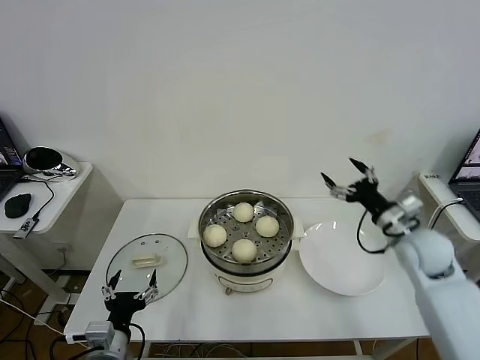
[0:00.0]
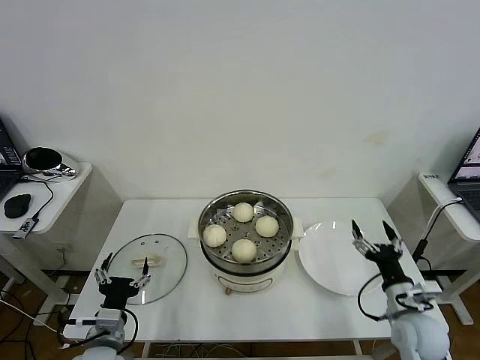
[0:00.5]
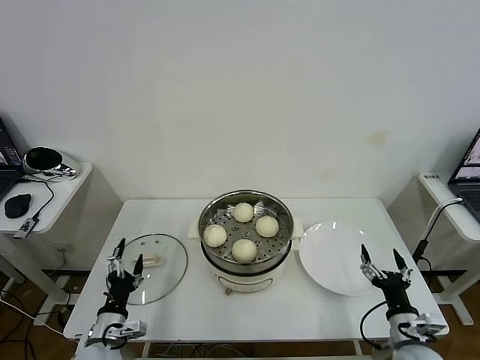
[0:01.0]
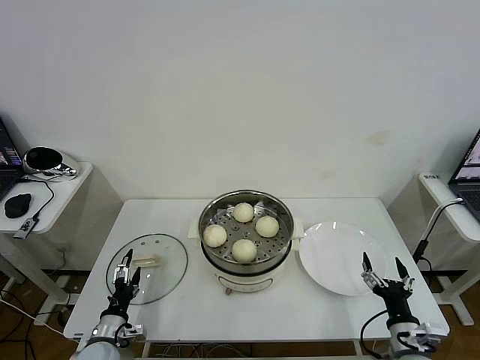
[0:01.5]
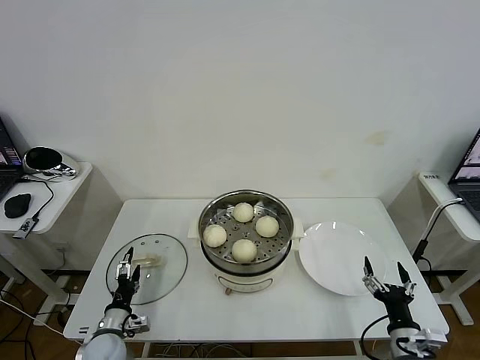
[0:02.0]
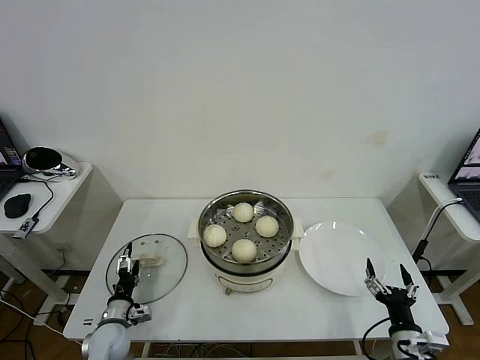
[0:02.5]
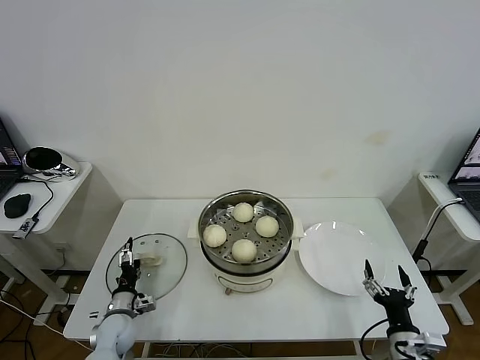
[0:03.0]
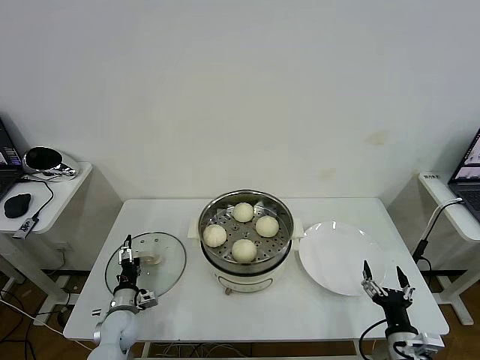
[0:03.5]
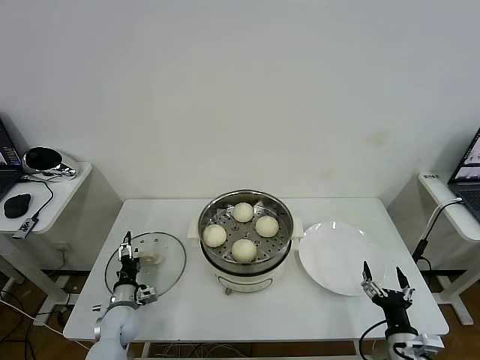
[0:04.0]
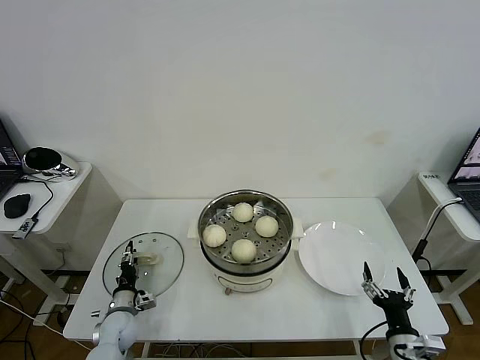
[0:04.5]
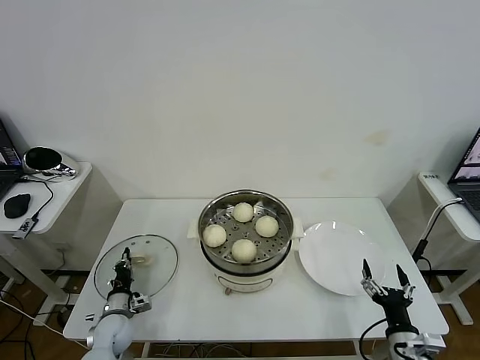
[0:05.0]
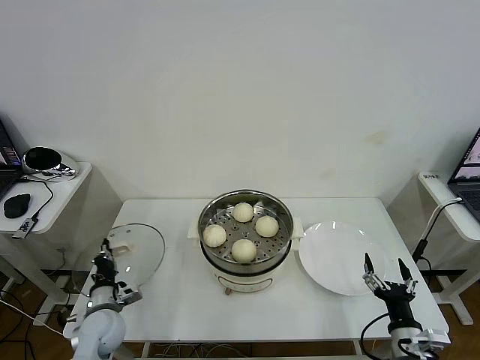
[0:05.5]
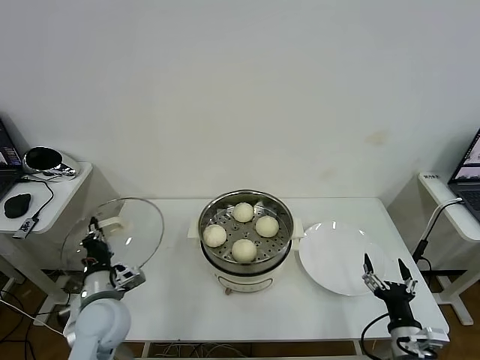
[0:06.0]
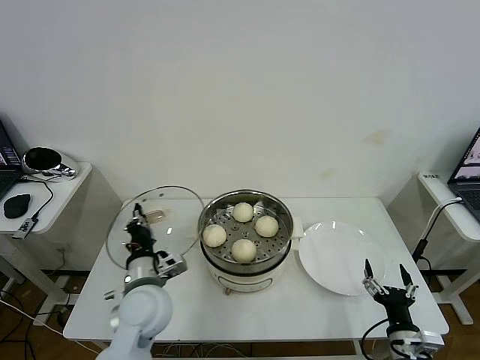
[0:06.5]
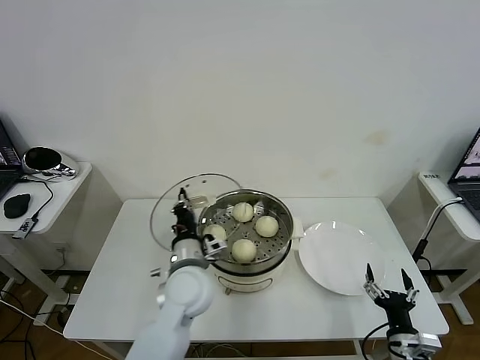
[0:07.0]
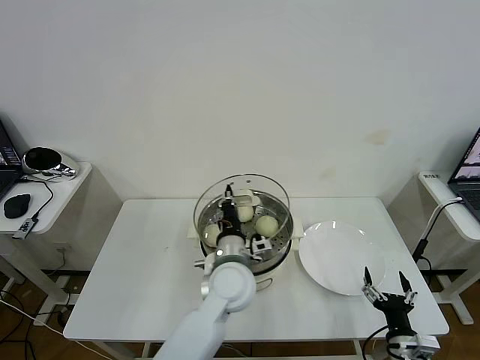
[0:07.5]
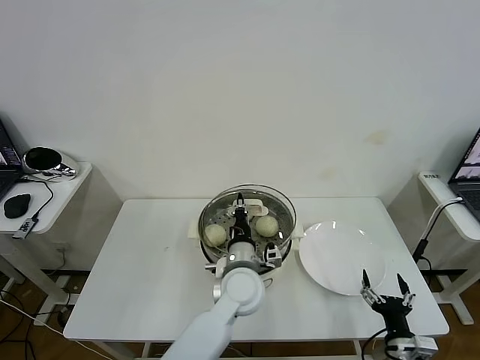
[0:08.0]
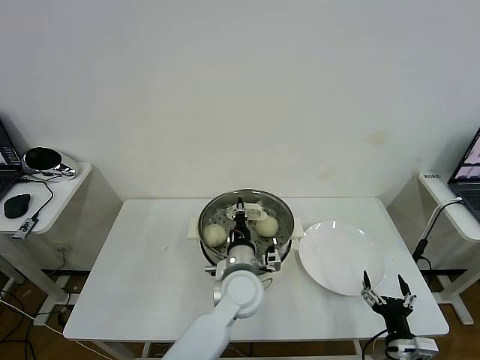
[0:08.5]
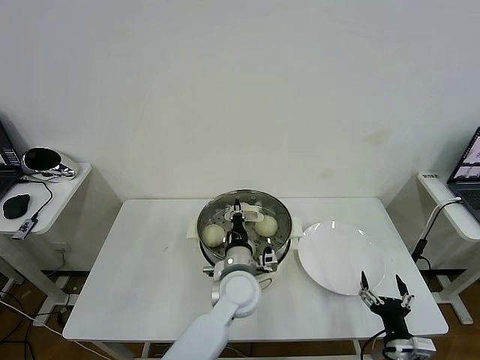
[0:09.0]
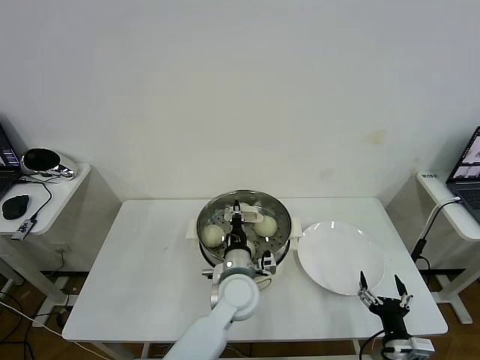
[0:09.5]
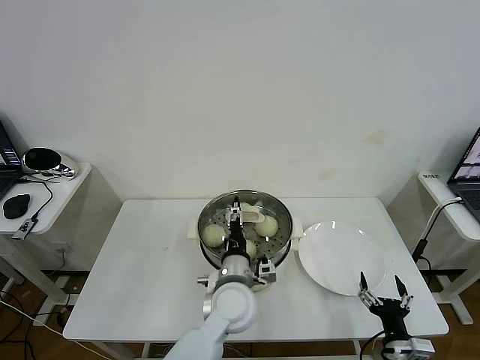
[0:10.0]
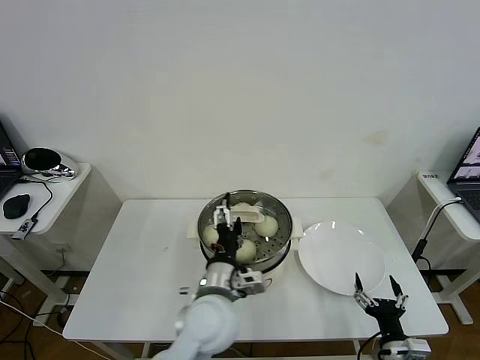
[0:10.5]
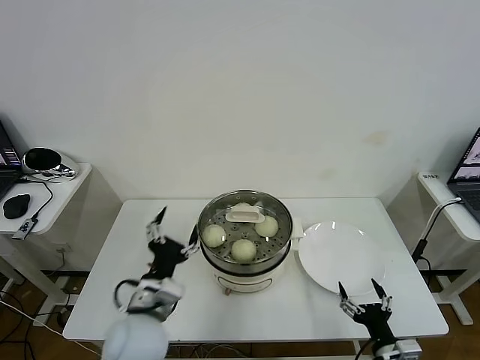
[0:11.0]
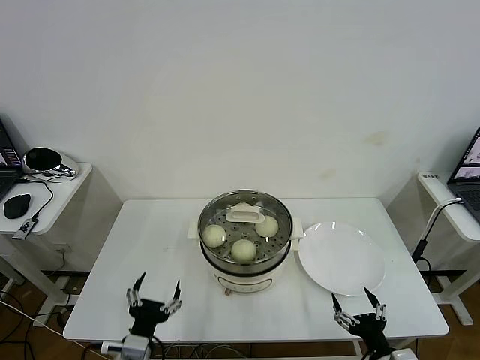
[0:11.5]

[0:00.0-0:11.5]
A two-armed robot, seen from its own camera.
Task of the whole recording: take steamed baozi put them in steamer then cover it.
Step, 0:00.0 to 0:05.0: Grasp the pot lid with left gripper.
Step, 0:05.5 to 0:09.5: Place the pot lid on the steamer with left gripper.
0:00.0 to 0:02.0: The right gripper is displaced backward and downward by some 25 cm. Meanwhile the left gripper is displaced downward, forward and to the left by some 15 cm.
0:02.0 to 0:04.0: The left gripper travels forward by roughly 10 cm.
0:04.0 to 0:06.0: The left gripper shifts some 20 cm upward, and closes.
0:06.0 to 0:07.5: The left gripper heads to the right, covering approximately 25 cm.
0:07.5 to 0:09.5: The left gripper heads downward, covering some 5 cm.
0:09.5 to 0:11.5: The left gripper is displaced to the left and backward by some 30 cm, and opens its fingers.

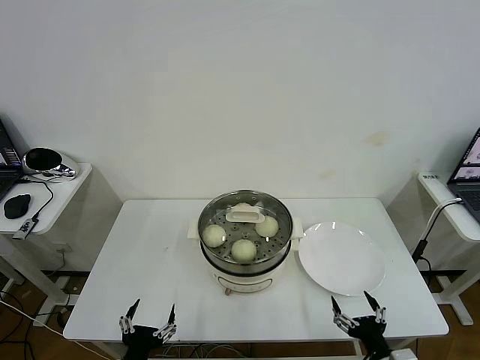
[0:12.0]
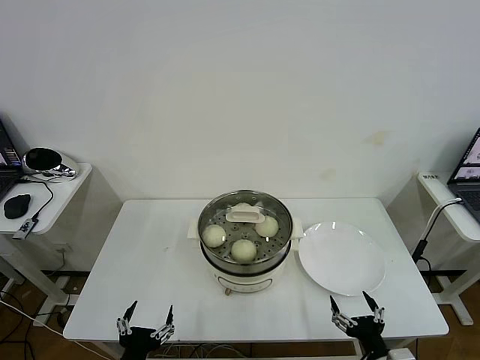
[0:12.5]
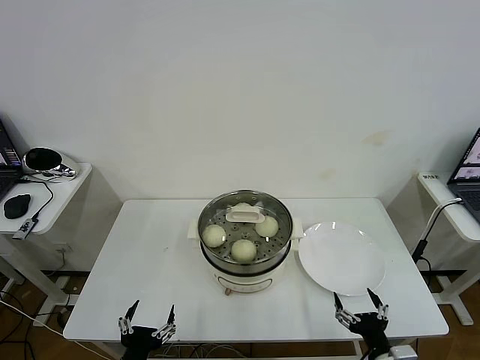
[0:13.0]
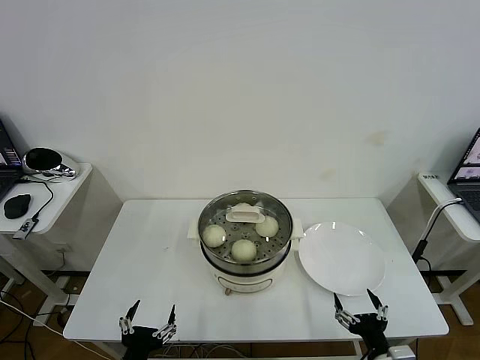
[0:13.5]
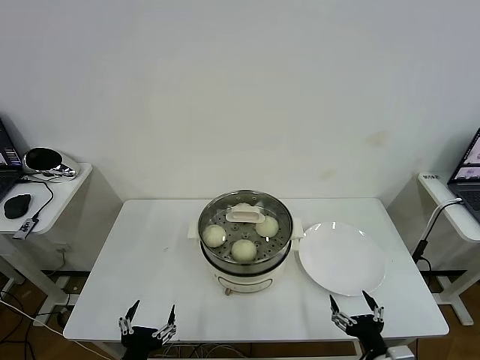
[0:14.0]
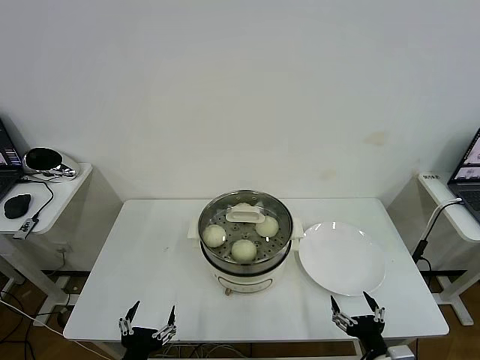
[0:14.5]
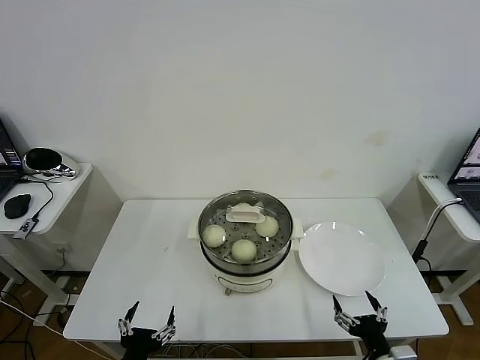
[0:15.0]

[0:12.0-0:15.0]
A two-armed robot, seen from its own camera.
Task of the whole recording: take steamed baozi put them in steamer then cover it.
0:12.0 to 0:15.0: Both grippers stay put.
